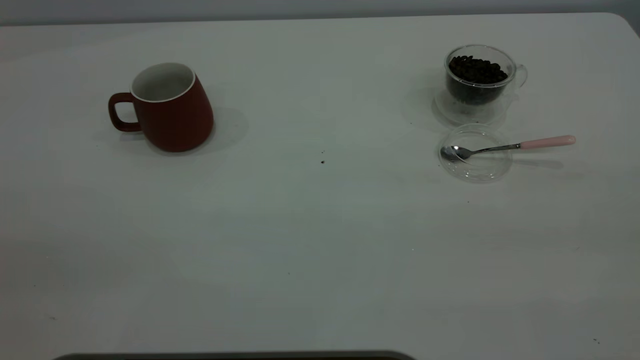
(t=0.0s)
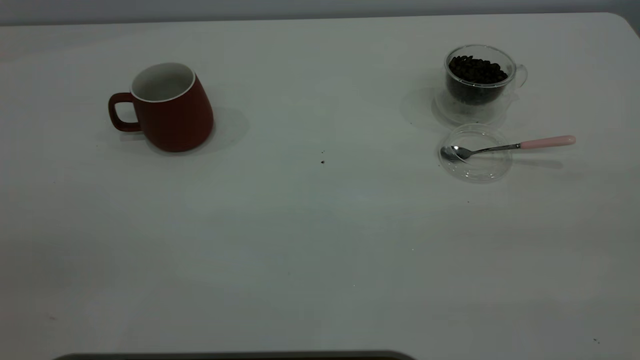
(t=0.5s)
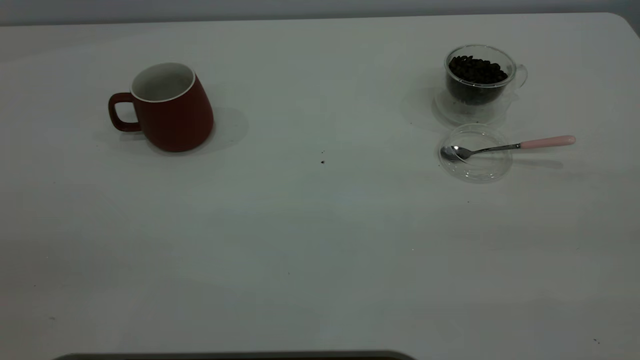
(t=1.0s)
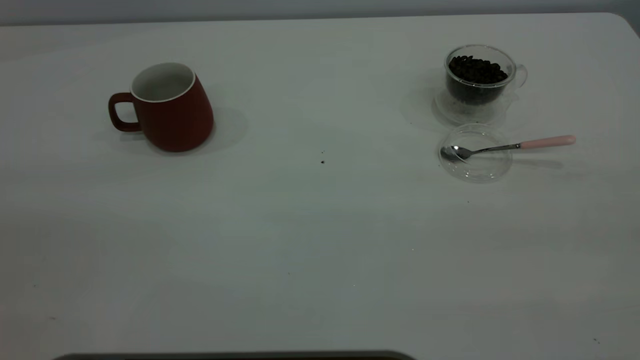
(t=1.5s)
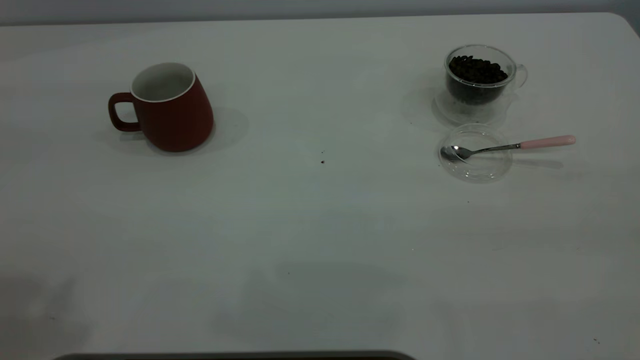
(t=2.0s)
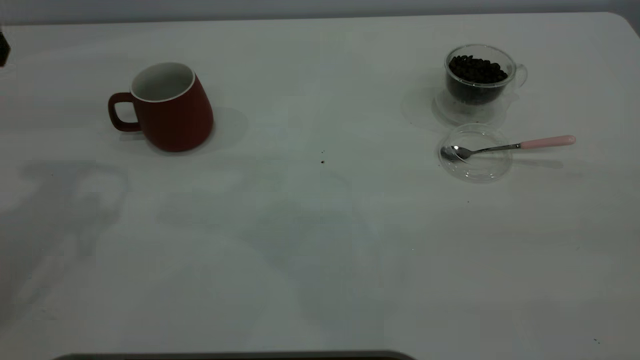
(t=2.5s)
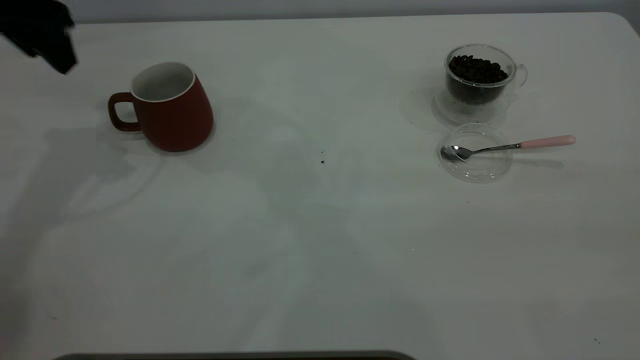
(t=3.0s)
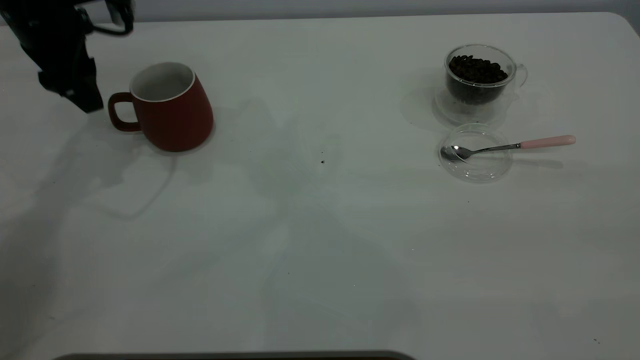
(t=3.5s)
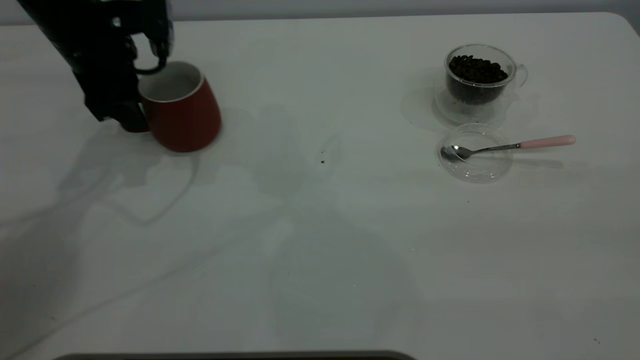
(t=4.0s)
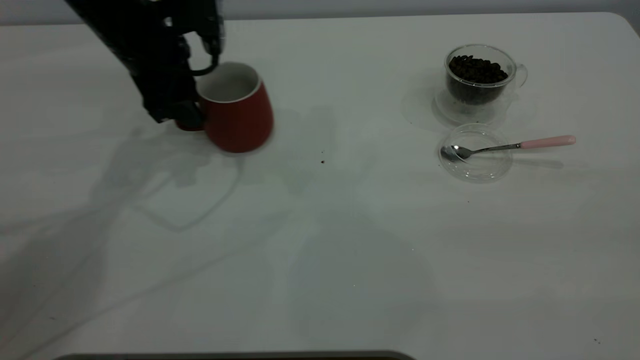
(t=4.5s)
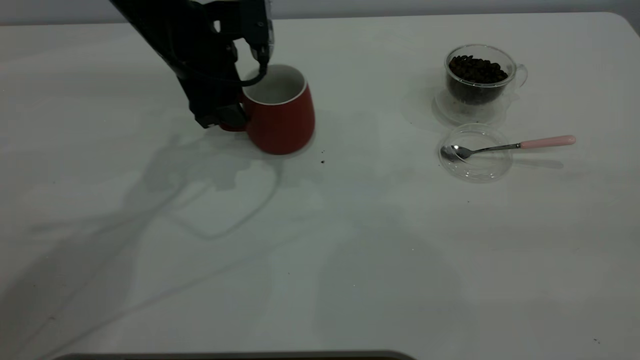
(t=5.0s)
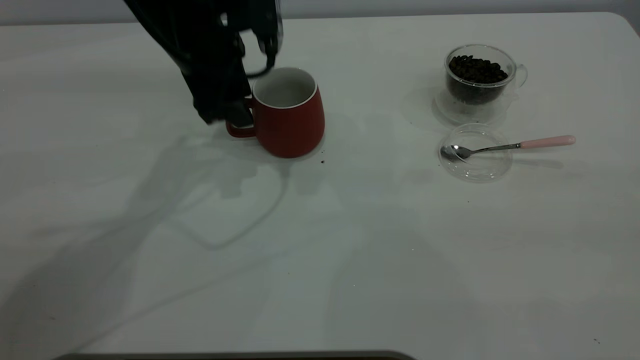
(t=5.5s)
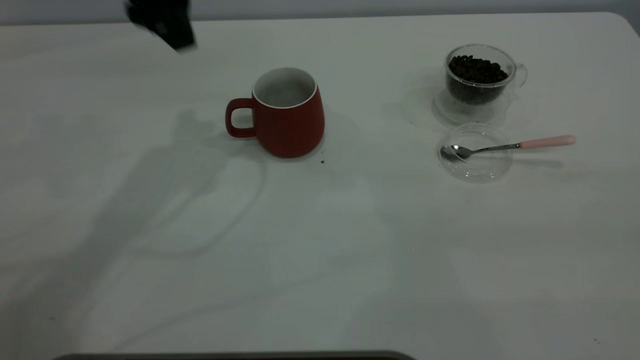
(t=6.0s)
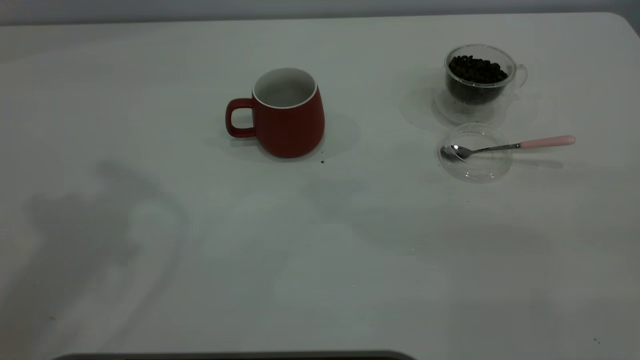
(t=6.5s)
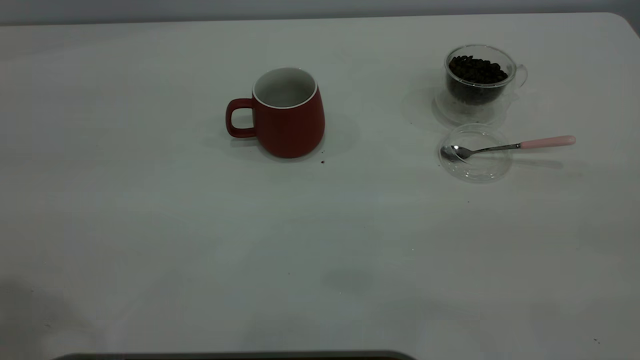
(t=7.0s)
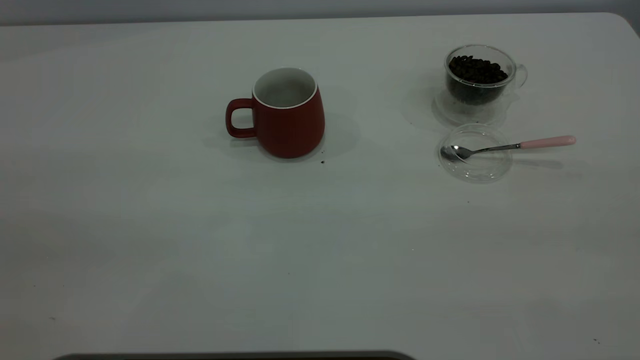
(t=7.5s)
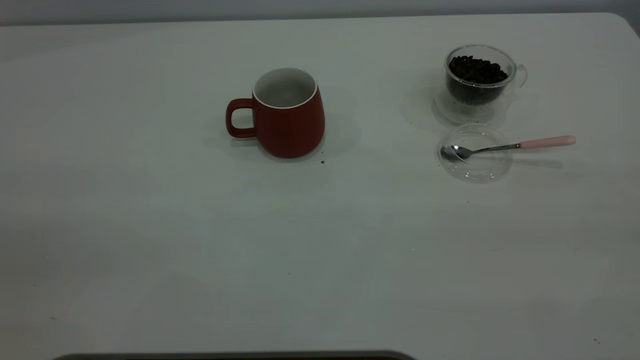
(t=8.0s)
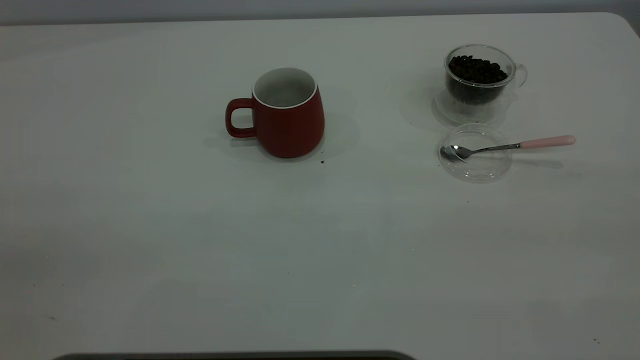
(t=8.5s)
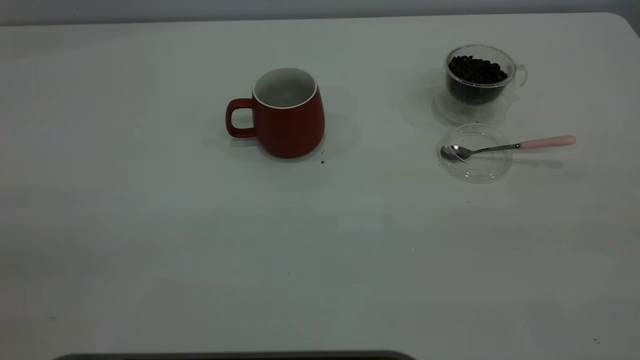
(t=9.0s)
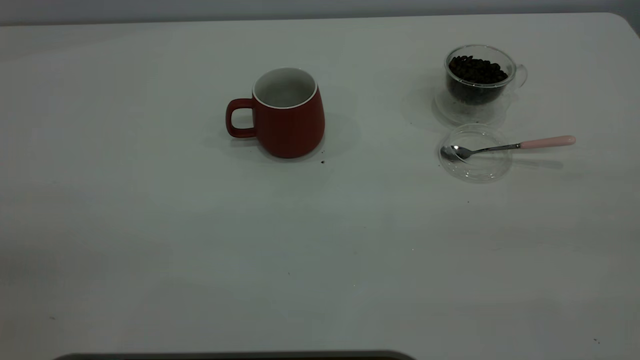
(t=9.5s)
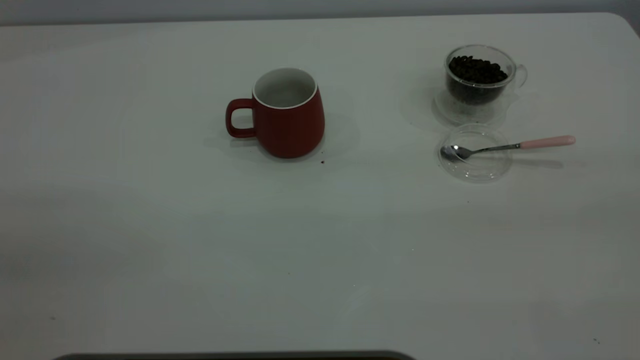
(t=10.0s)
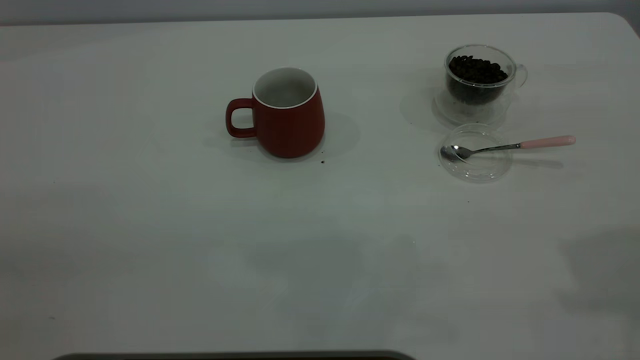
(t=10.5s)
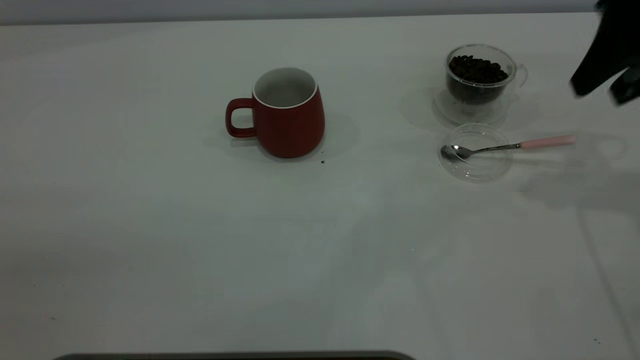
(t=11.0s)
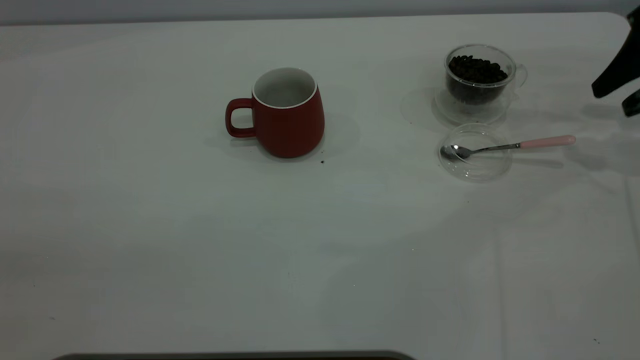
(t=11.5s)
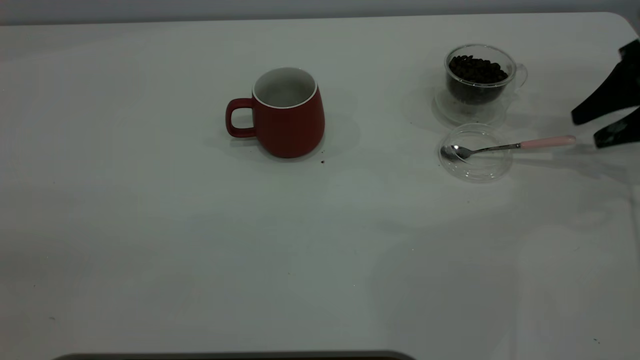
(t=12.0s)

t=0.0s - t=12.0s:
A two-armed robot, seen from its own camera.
Task of the whole recording: the left gripper place the red cup in the center of the table, the right gripper take the pink spoon from the cup lid and scoop out the coffee beans from the coffee cup and put them into the red cup, the right gripper put the spoon back into the cup lid.
Step, t=0.0s - t=5.5s: Move the cup to the center of view.
t=2.0s - t=4.0s: The left gripper heads forward and downward, covering roughly 35 cm.
t=4.0s - t=6.0s: The left gripper travels upward and to the right by roughly 15 cm.
t=6.0s - t=8.0s: The left gripper heads backward, covering about 40 cm.
t=10.0s - t=12.0s: The right gripper heads forward and downward, covering approximately 40 cm.

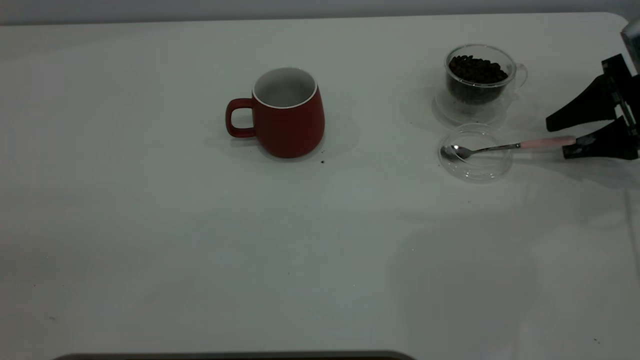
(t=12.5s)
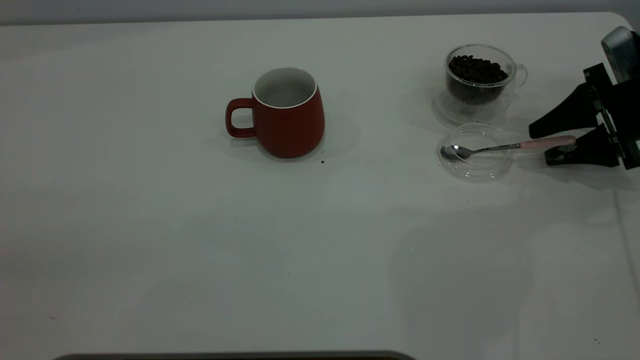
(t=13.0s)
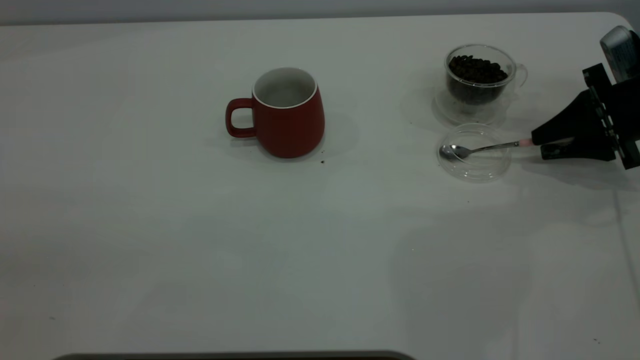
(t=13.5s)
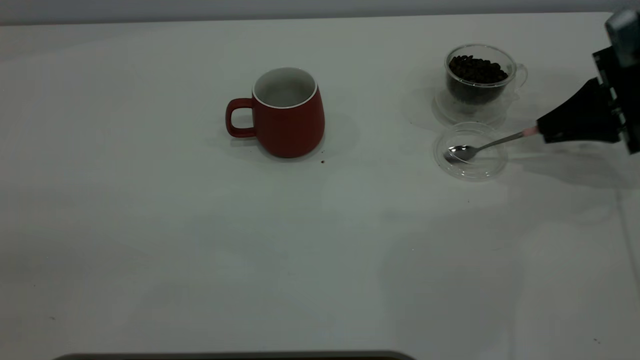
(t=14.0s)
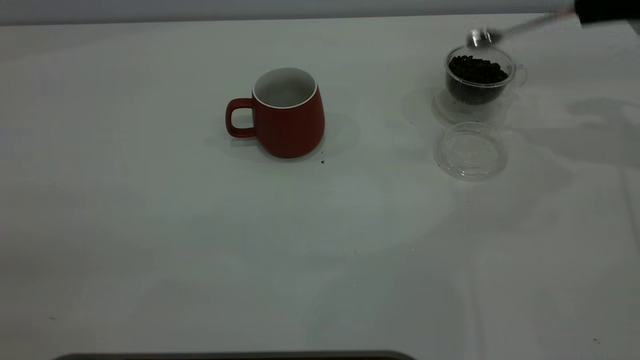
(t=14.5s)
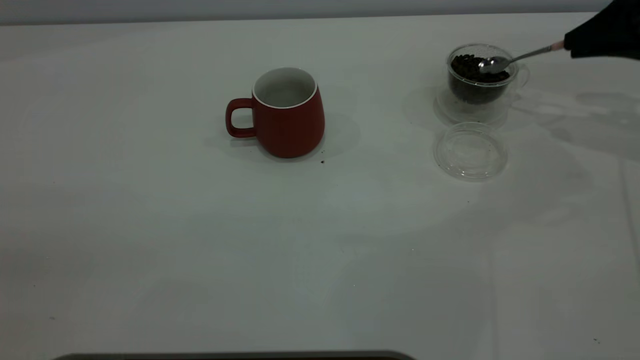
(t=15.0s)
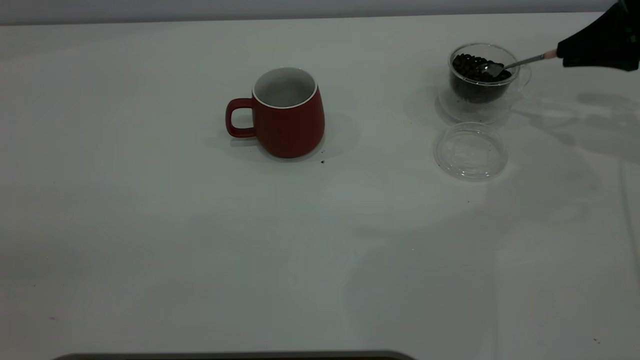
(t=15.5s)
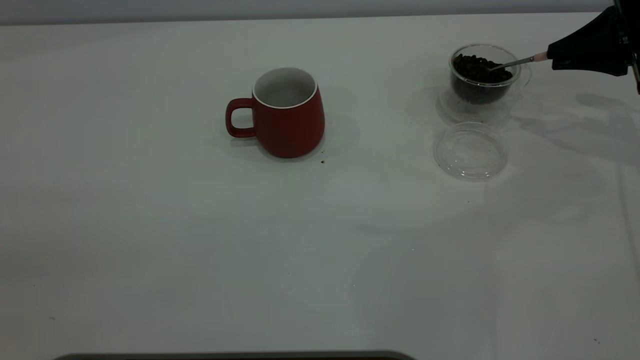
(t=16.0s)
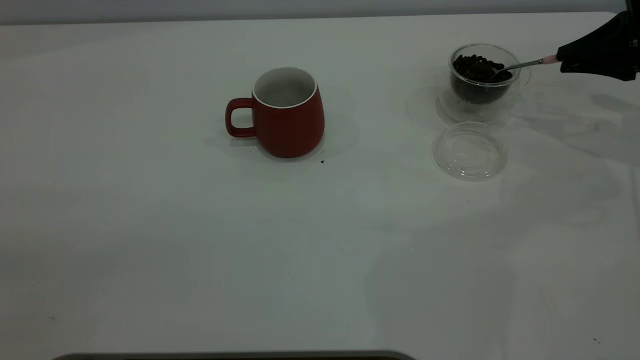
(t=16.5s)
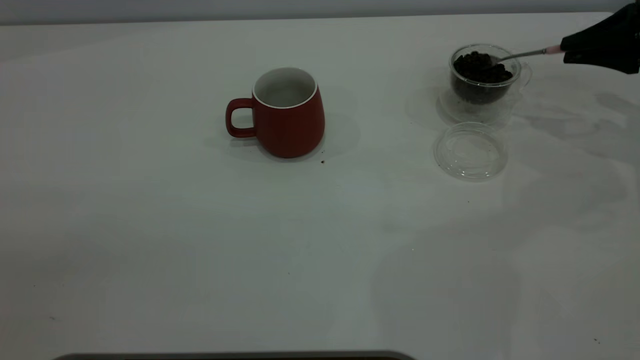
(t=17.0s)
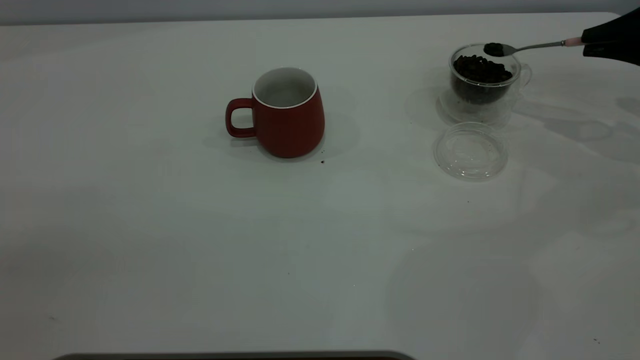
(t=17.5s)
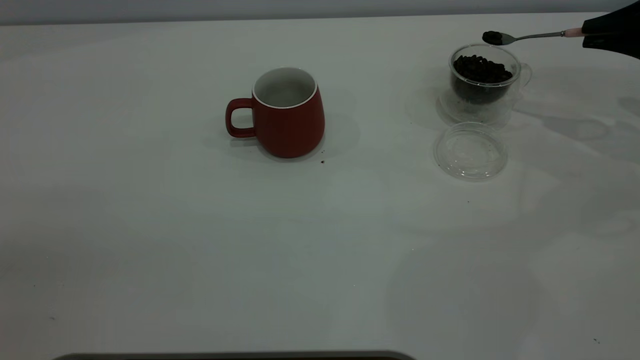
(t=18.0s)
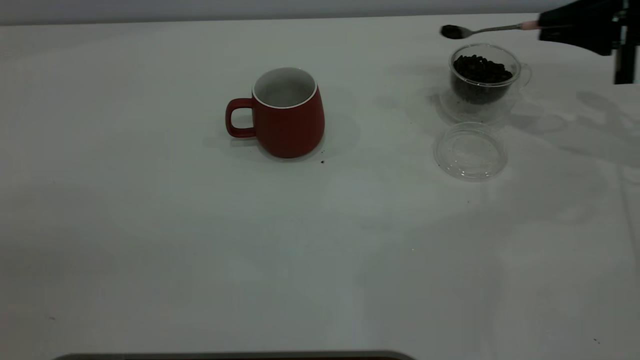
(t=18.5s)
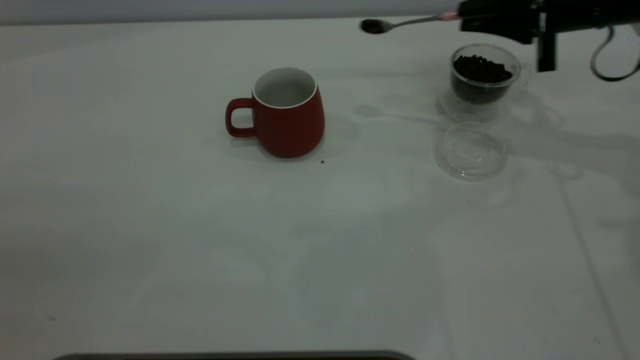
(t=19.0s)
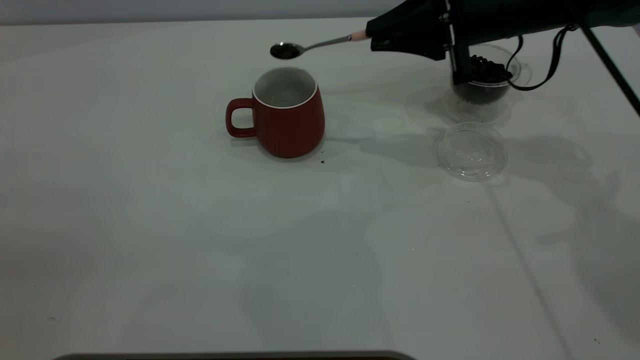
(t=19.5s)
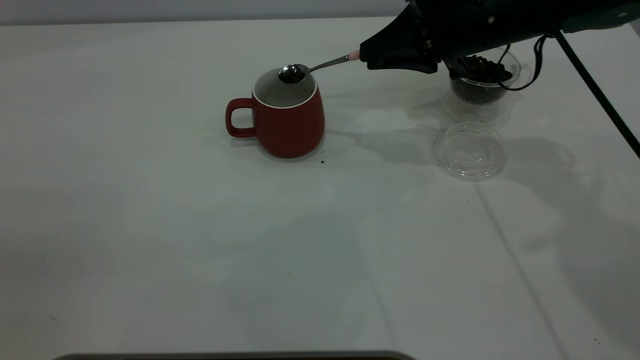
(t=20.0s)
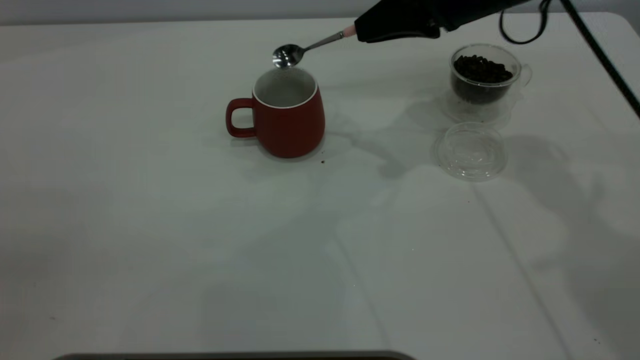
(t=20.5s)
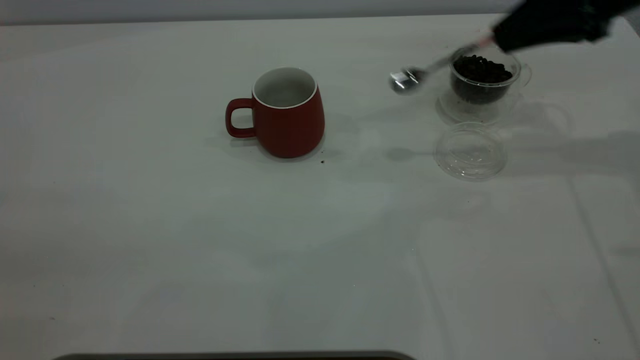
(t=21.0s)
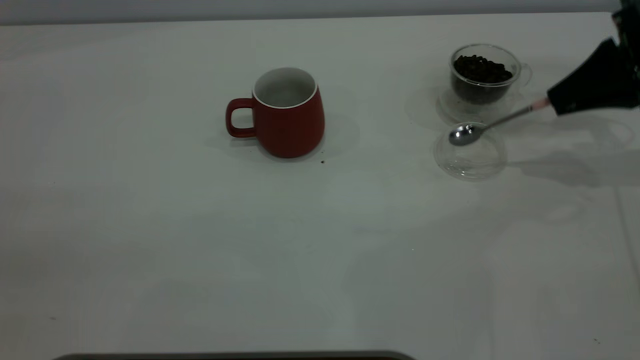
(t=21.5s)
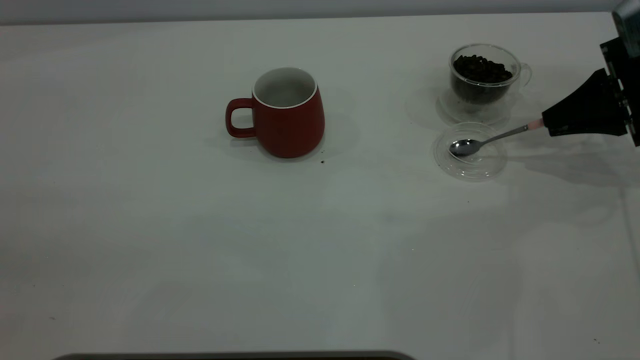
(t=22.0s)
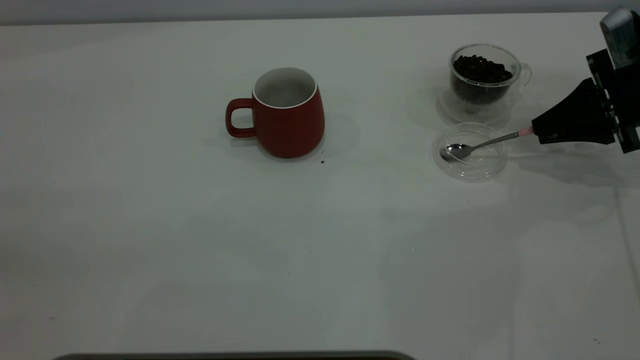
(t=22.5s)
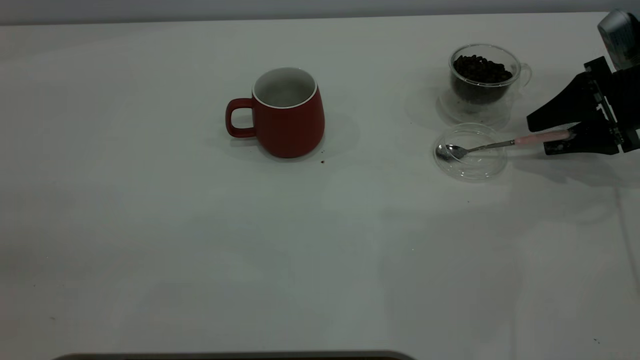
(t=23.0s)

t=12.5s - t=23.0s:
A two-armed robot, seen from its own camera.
Task of the whole recording: the left gripper place the red cup in the center of the table, the right gripper take the pink spoon from the cup lid and scoop out the coffee beans from the coffee cup and put them into the red cup, the right gripper put the spoon back into the cup lid.
Step, t=14.5s - t=20.5s: Scoop a spoonful of beans into the cup.
t=12.5s - t=14.5s: The right gripper shifts roughly 15 cm upward, and closes.
t=14.5s - t=16.5s: The right gripper shifts approximately 10 cm downward.
t=16.5s - t=19.0s: The right gripper is displaced to the left by about 10 cm.
t=19.0s - t=21.0s: The right gripper reaches approximately 10 cm to the left, then returns.
t=21.0s - t=23.0s: The right gripper travels downward and to the right by some 15 cm, and opens its fingers.
